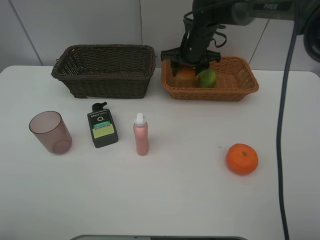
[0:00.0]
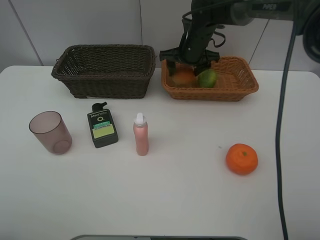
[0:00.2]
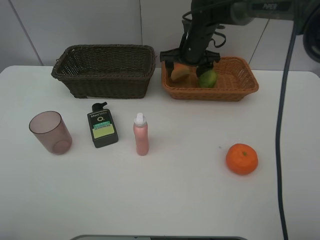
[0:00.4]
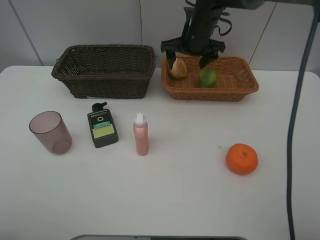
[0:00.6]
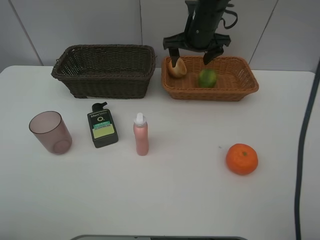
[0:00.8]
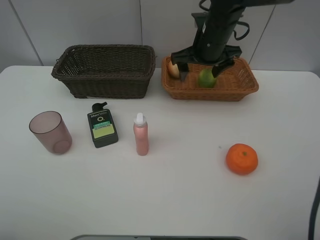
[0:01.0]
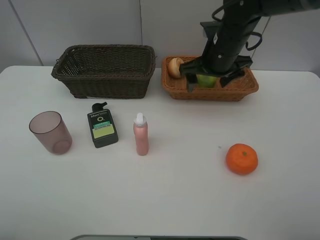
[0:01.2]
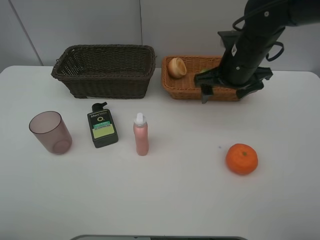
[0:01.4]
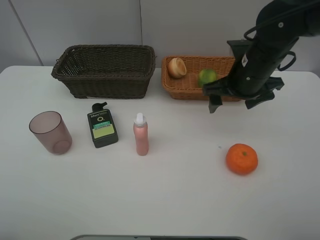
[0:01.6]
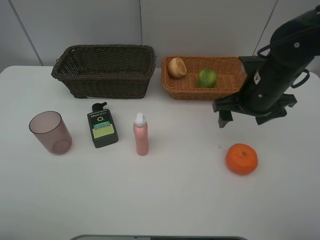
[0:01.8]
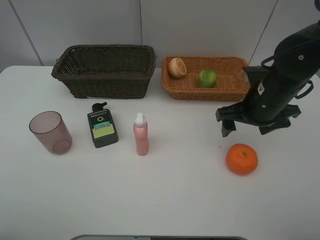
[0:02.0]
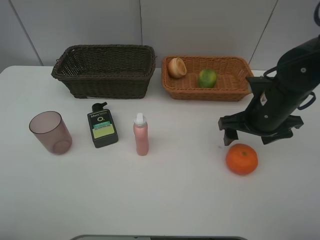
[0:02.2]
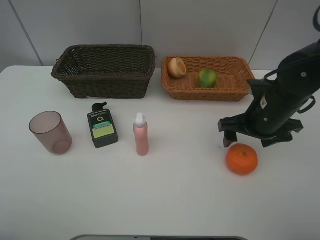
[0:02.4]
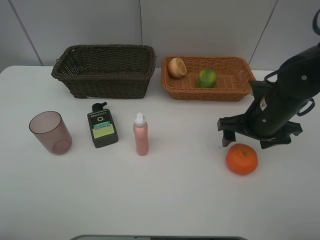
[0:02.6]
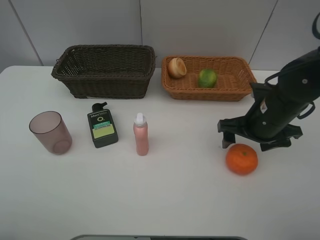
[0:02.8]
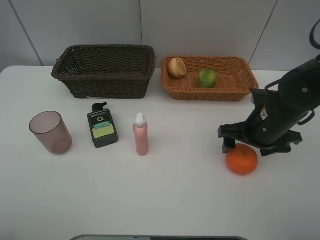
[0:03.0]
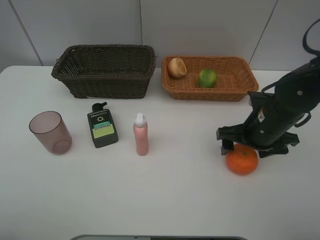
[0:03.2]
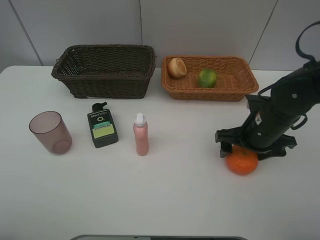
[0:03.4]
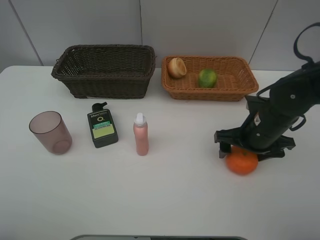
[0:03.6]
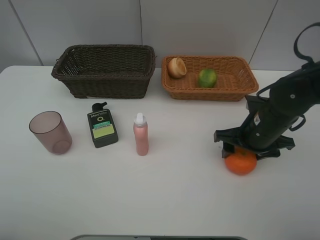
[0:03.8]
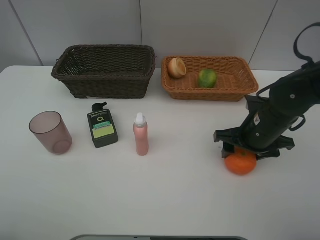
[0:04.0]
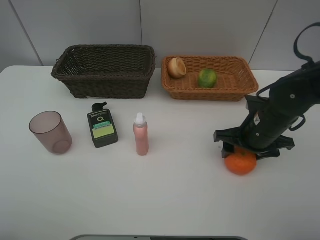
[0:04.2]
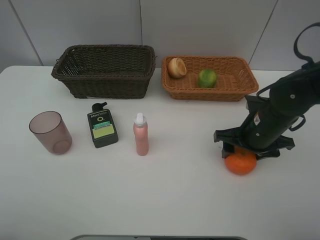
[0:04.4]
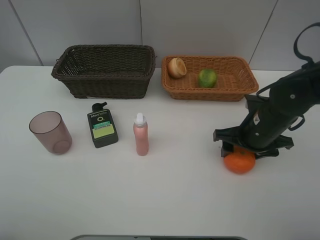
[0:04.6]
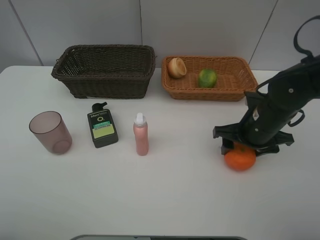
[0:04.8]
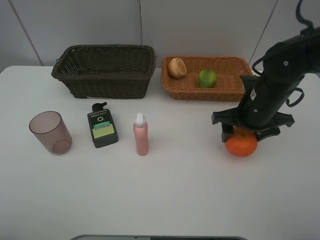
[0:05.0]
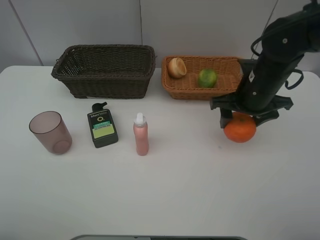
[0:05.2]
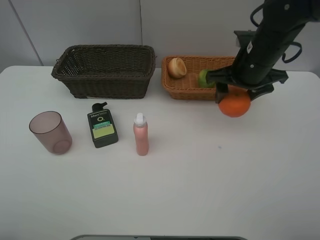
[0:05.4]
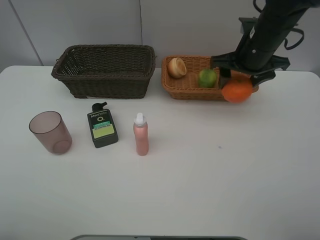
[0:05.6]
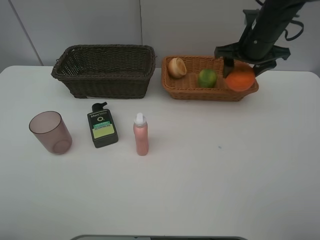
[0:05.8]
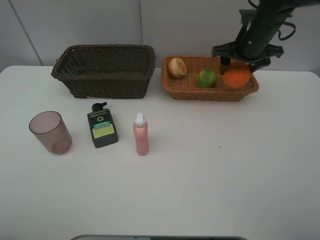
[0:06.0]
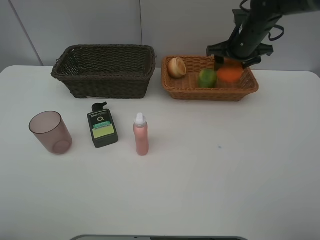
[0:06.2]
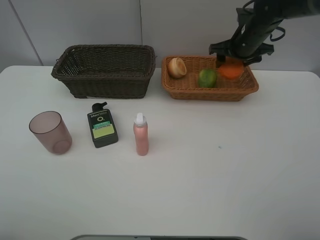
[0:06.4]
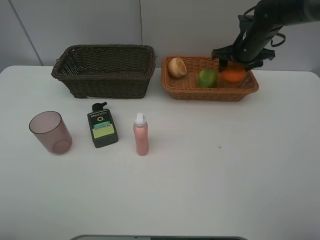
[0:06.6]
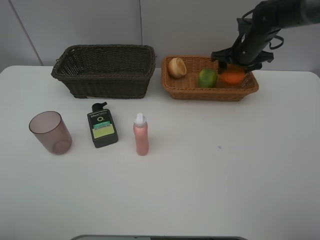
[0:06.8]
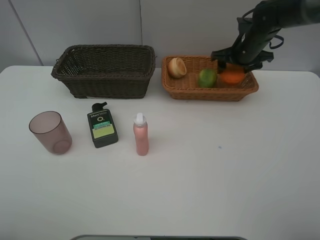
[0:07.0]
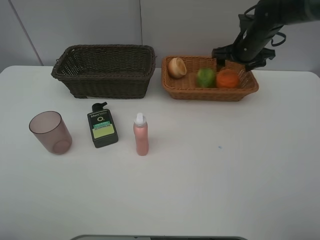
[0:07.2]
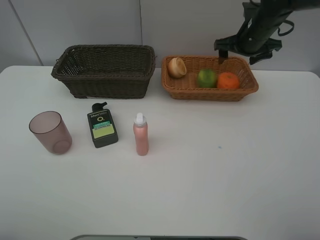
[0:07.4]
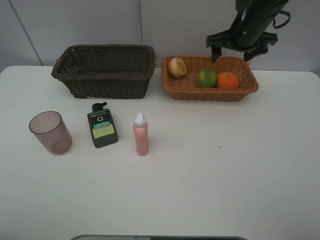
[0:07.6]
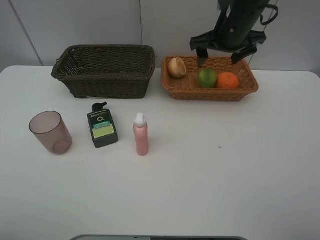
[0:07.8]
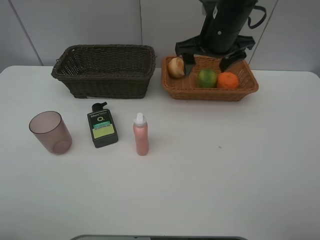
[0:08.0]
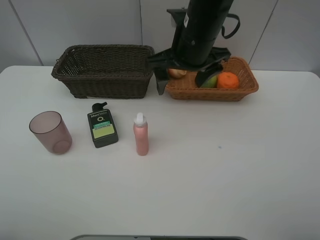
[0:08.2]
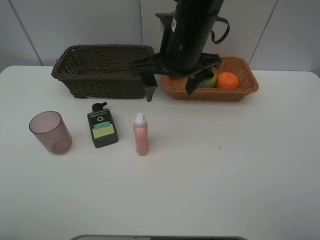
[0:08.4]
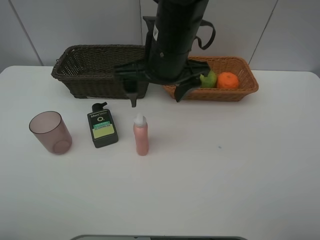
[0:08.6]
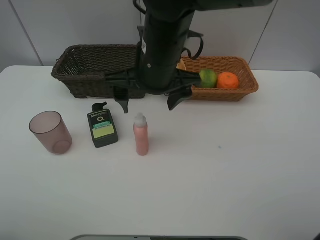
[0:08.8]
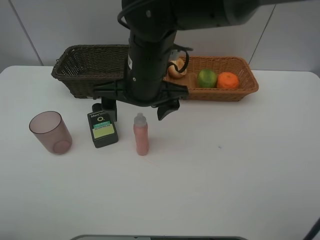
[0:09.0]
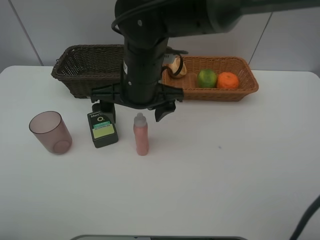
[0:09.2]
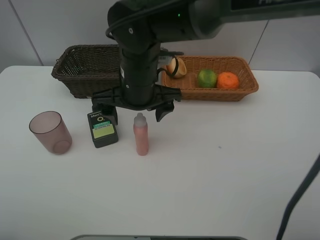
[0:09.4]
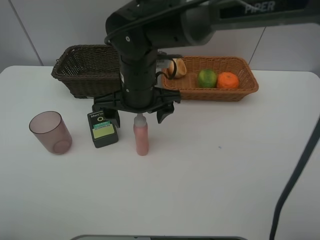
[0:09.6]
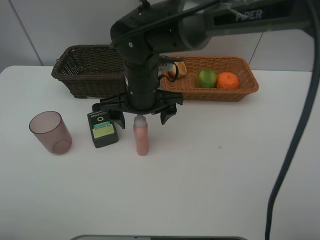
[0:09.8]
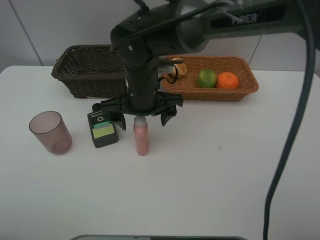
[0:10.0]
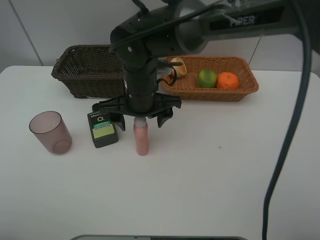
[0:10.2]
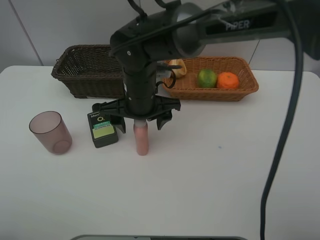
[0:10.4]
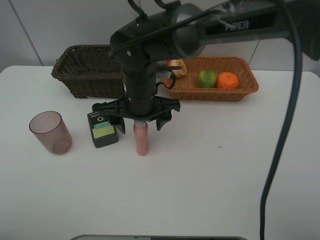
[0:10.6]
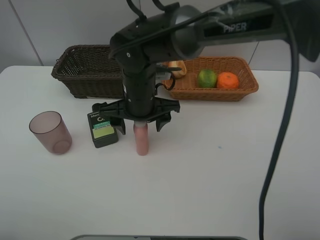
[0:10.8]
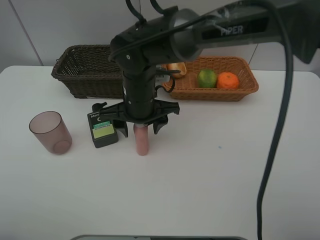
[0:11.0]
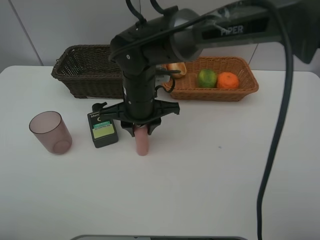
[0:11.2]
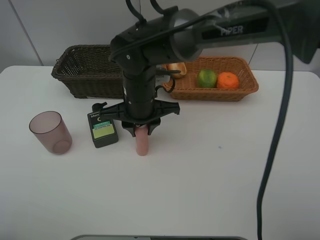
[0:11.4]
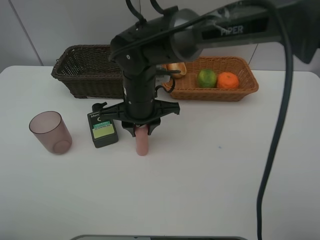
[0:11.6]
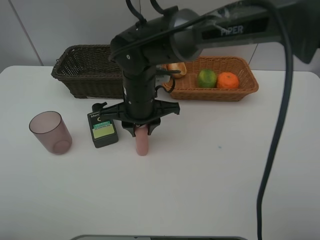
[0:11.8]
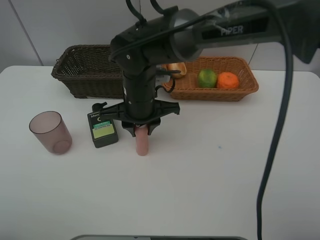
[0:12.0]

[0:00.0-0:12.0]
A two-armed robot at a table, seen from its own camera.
Task of the whole recording: place multiple objects separately in different baskets.
Step, 0:00.6 to 0:05.0: Pick up the orange with right gripper.
Step, 0:05.2 to 0:07.2: Place the orange in the light basket with right gripper.
0:00.0 to 0:01.6: The right gripper shifts about 20 cm backward and to the right, and opens its fingers.
0:01.6 to 0:03.0: The right gripper travels downward and backward by some 10 cm.
0:03.0 to 0:04.4: The grippers make only small movements.
0:04.4 to 0:06.0: The right gripper travels forward and upward by roughly 20 cm.
0:06.0 to 0:07.6: The grippers move only a little.
0:07.6 to 0:09.0: The right gripper moves to the left and backward, roughly 25 cm.
0:09.0 to 0:10.4: The right gripper moves downward, roughly 5 cm.
0:10.4 to 0:12.0: The right gripper closes.

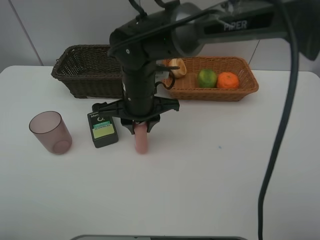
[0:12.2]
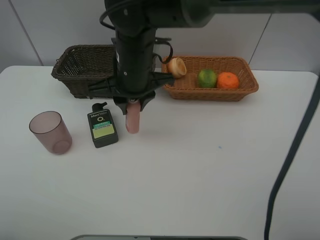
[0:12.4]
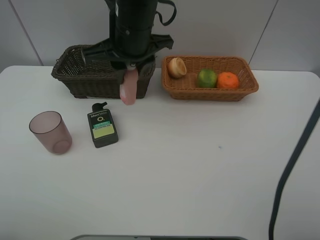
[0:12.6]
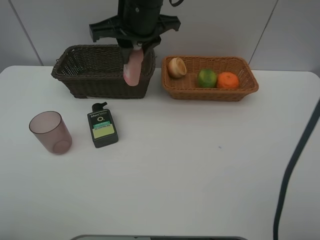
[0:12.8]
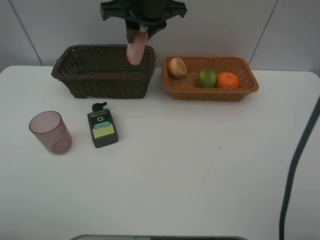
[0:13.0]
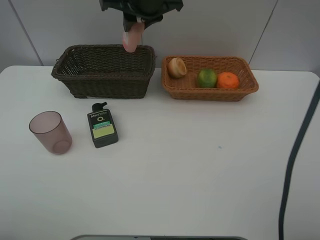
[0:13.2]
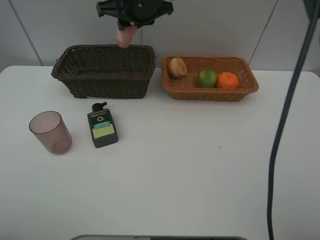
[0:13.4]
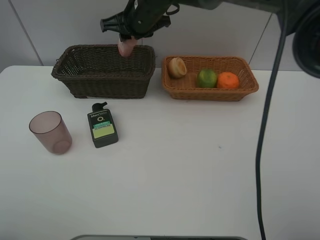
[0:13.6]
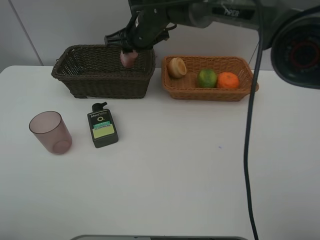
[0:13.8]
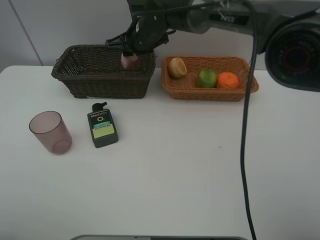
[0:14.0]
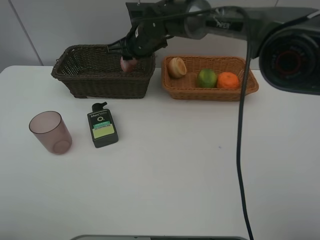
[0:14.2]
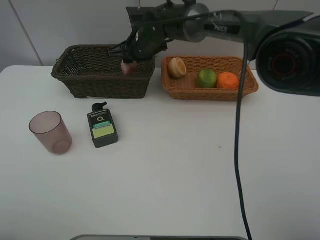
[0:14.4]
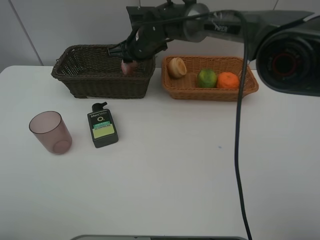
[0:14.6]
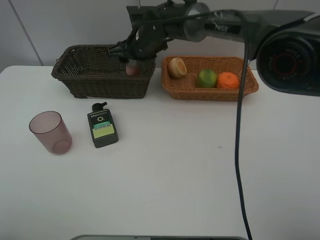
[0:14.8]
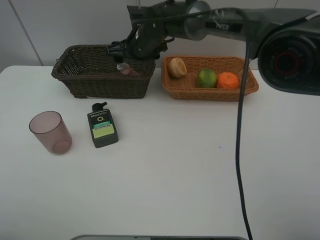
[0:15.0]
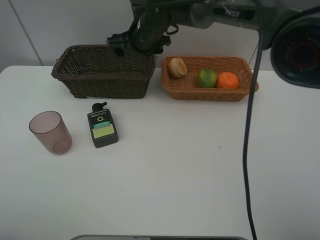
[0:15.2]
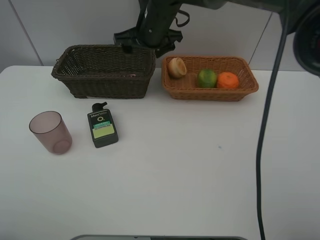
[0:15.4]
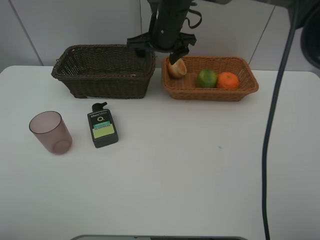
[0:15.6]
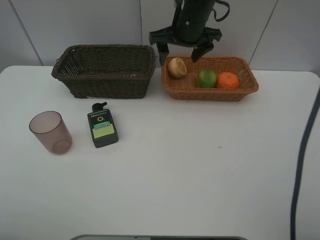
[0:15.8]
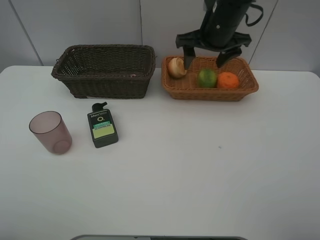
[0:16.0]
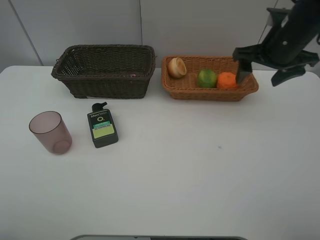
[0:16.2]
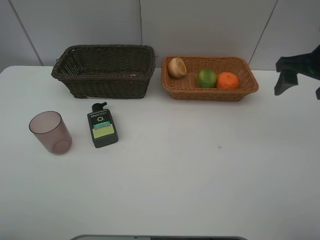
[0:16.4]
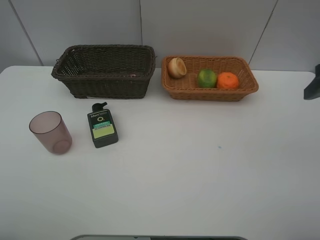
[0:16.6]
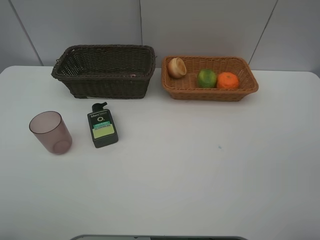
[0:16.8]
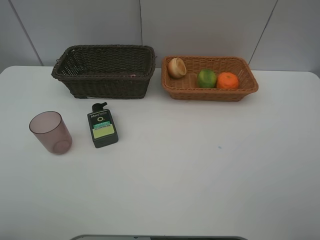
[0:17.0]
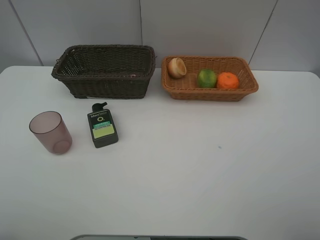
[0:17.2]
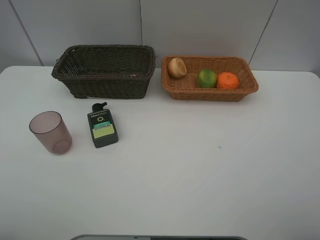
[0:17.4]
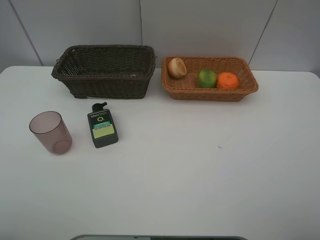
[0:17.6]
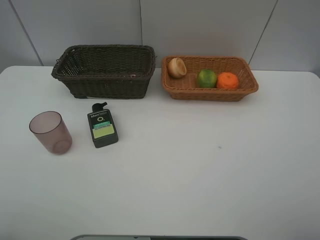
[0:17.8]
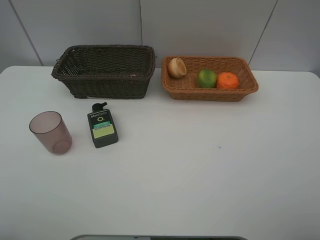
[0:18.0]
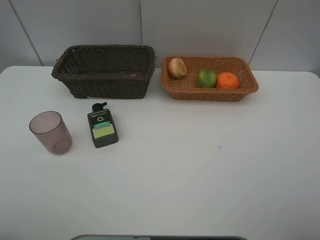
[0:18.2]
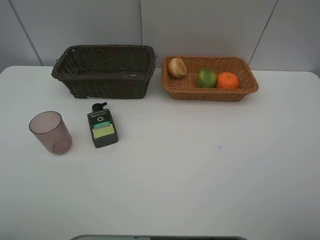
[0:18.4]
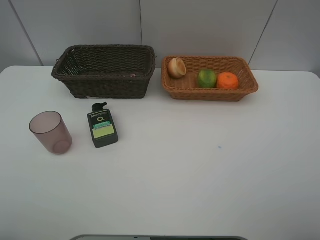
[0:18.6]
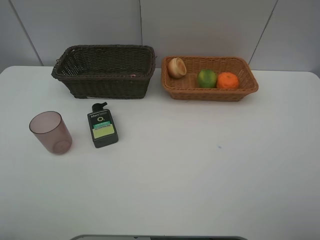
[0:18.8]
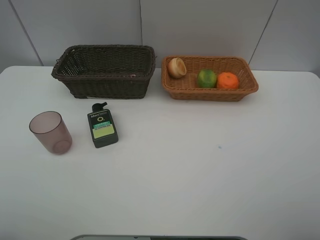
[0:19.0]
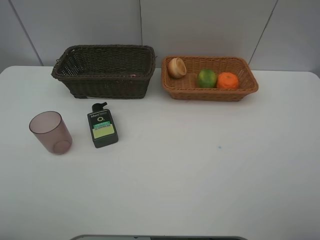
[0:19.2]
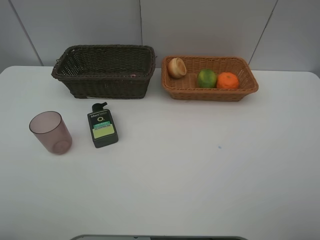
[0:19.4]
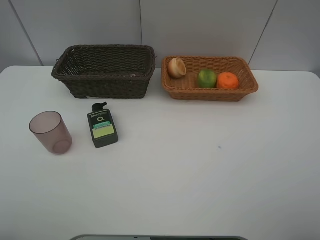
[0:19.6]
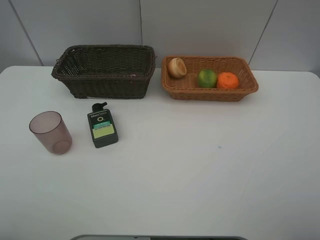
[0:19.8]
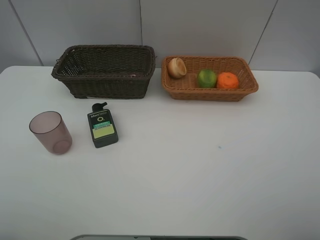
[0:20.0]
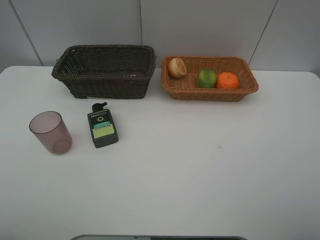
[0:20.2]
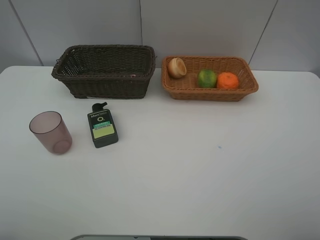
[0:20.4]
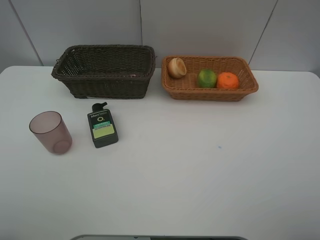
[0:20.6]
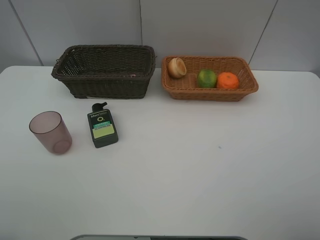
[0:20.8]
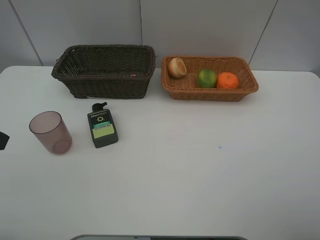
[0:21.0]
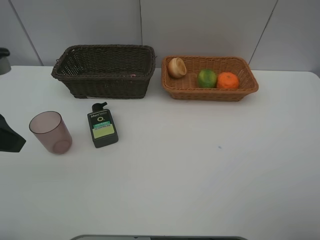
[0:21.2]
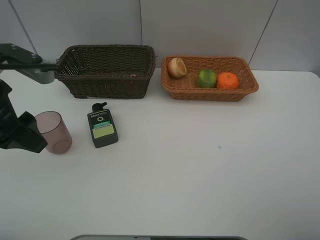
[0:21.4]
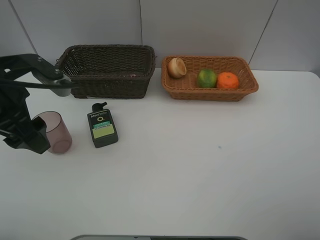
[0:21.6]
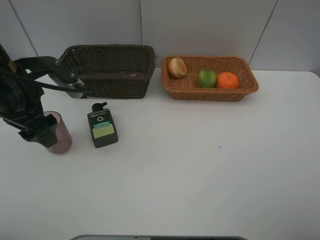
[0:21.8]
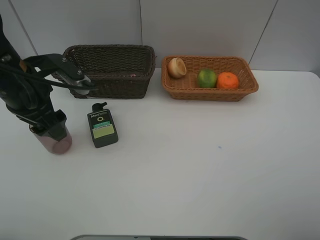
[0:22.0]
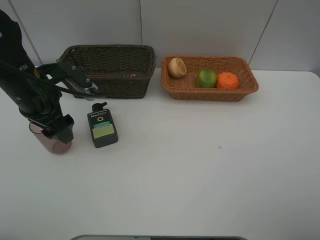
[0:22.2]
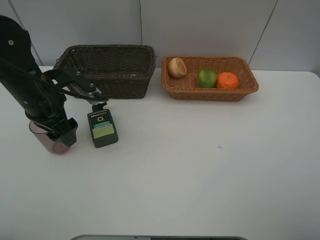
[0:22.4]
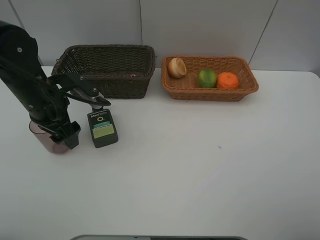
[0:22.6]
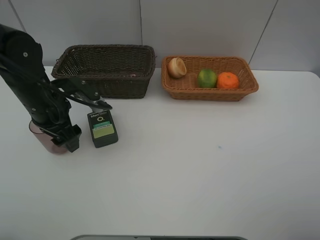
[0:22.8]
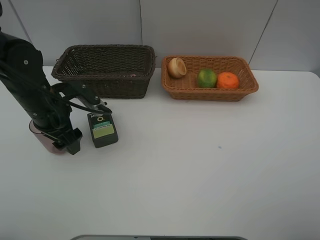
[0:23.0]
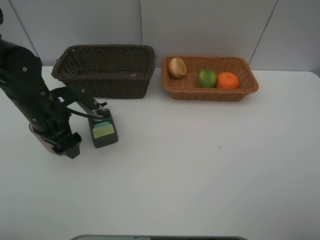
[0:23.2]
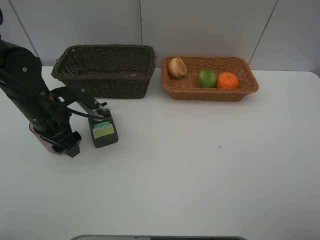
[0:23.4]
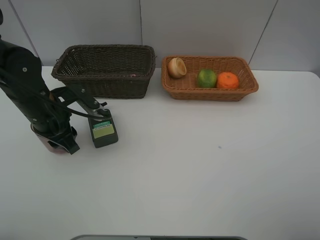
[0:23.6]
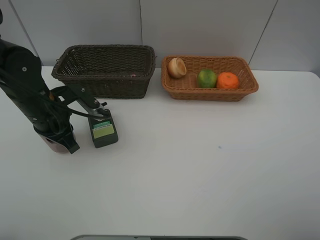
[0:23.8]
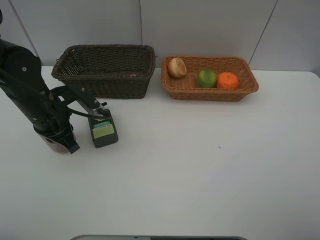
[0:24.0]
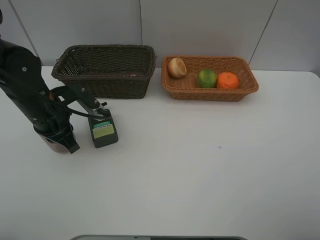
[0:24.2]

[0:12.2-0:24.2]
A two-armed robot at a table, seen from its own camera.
Task of the whole recording: place multiple objects separately in different baskets.
Step, 0:12.6 to 0:15.0: Place the laundry detergent in the dark basket with right gripper.
0:12.2 to 0:13.8: The right gripper travels forward by about 15 cm.
0:13.8 to 0:15.2: The right gripper opens.
0:15.2 to 0:16.6: The right gripper moves to the right and backward, roughly 40 cm.
0:18.2 to 0:19.8: Both grippers stay about where they are.
0:19.8 to 0:21.2: The left gripper heads forward, covering about 15 cm.
0:21.2 to 0:22.6: The left gripper is displaced forward, downward and to the right by roughly 15 cm.
0:22.6 to 0:24.2: The left gripper closes up.
